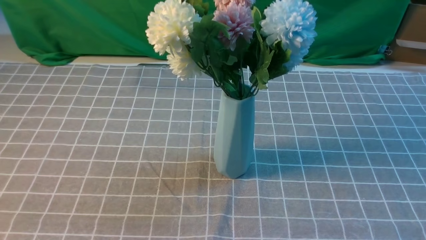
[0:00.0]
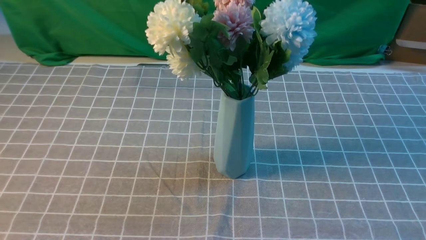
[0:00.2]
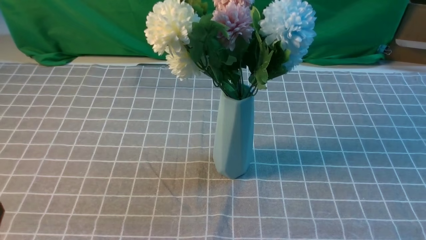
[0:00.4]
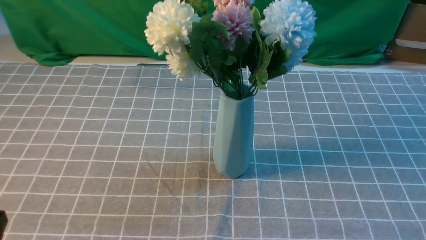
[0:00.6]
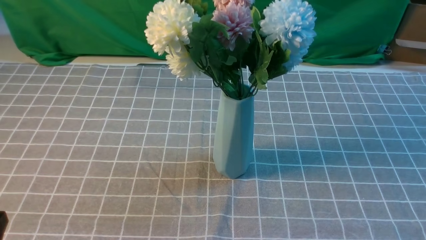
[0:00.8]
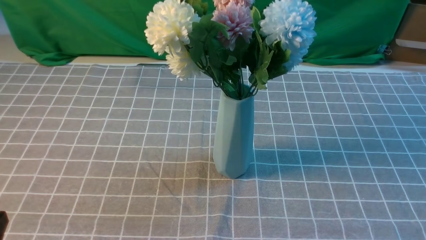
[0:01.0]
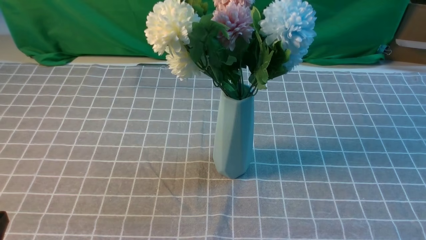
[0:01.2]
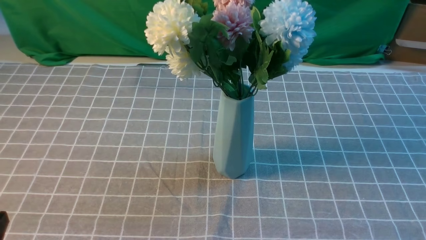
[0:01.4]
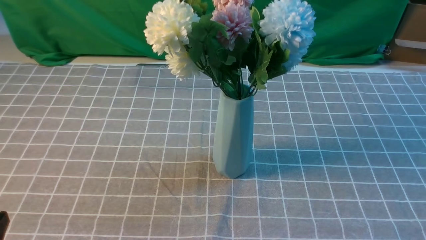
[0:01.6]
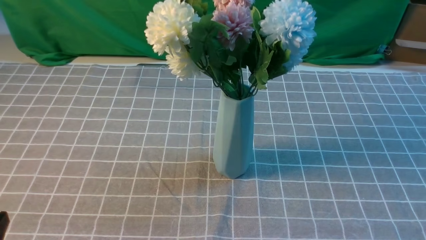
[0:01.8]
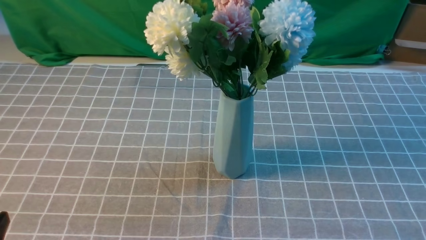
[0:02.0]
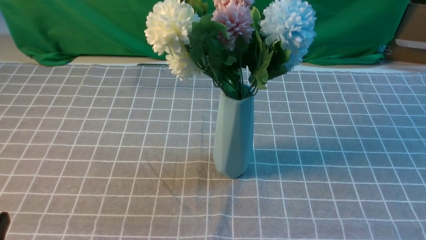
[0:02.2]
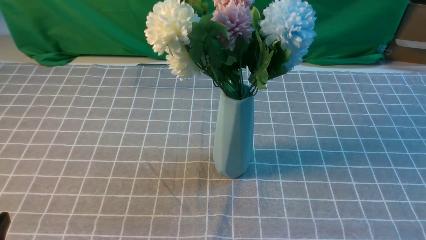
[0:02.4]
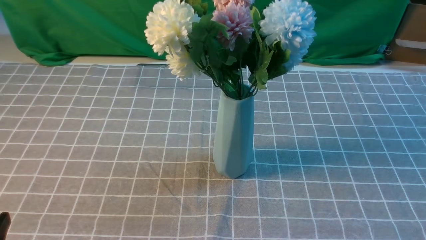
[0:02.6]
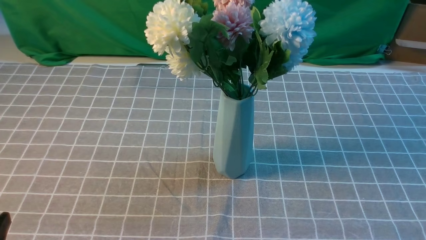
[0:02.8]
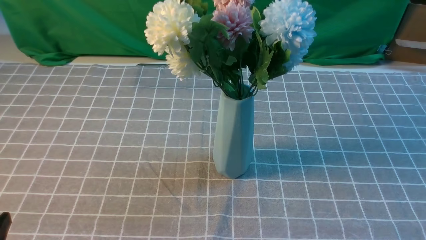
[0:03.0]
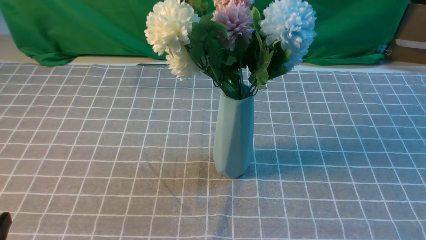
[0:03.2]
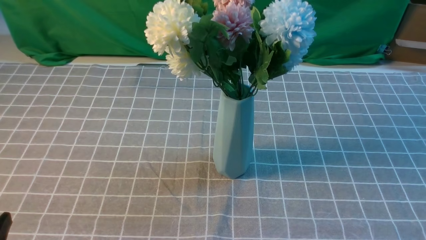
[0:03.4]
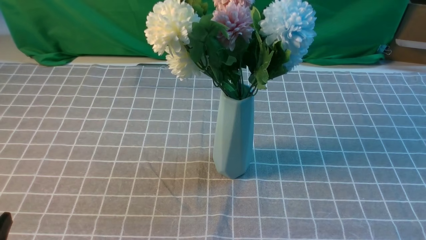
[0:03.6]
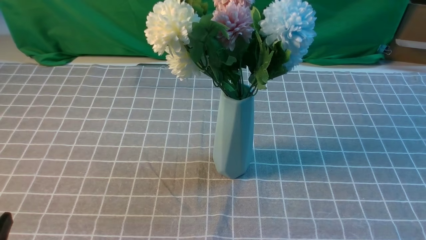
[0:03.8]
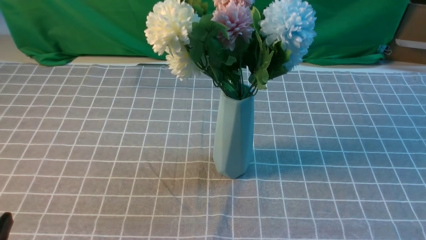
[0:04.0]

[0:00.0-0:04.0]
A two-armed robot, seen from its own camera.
Task of the whole recording: insert the flowers into the vase on the table with the grey tablecloth.
0:00.0 to 0:01.4: The left gripper is displaced downward by some 10 cm.
0:02.6 to 0:04.0: Neither gripper changes place.
